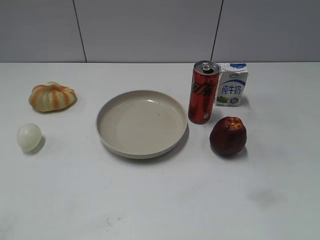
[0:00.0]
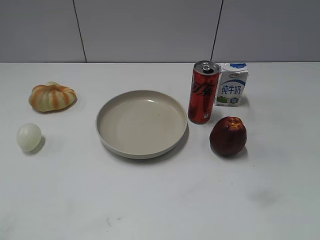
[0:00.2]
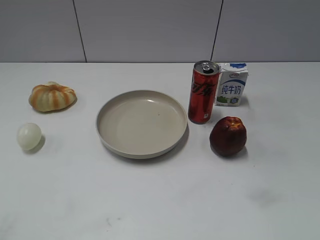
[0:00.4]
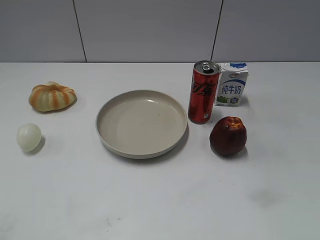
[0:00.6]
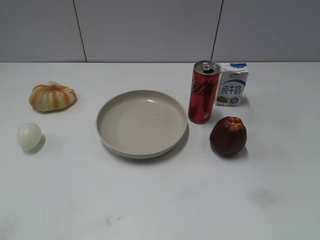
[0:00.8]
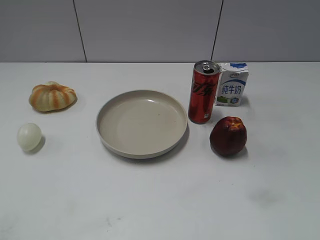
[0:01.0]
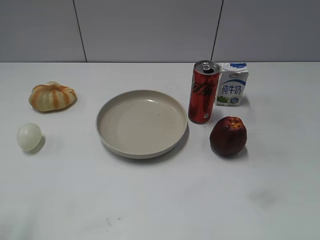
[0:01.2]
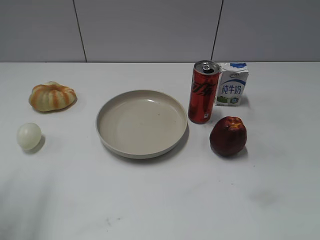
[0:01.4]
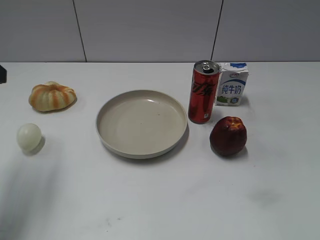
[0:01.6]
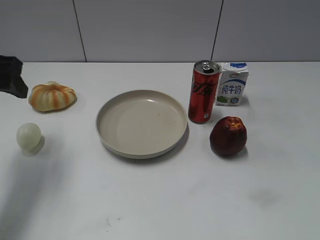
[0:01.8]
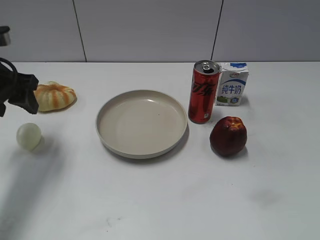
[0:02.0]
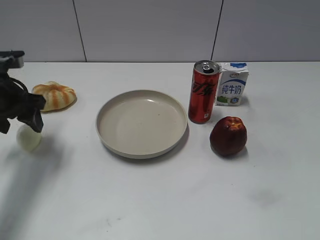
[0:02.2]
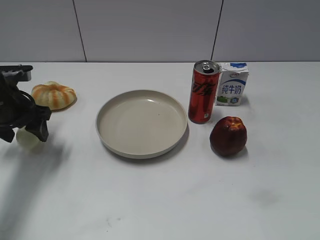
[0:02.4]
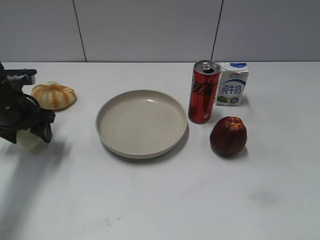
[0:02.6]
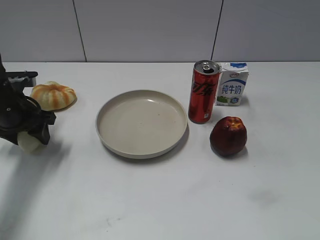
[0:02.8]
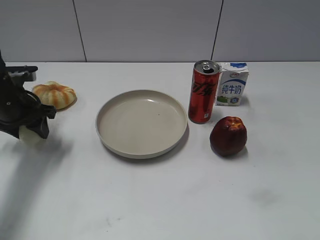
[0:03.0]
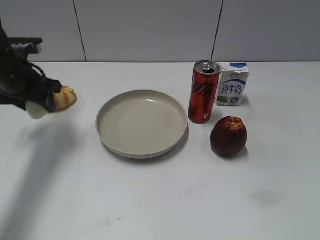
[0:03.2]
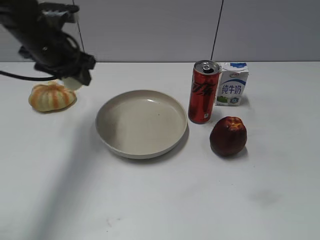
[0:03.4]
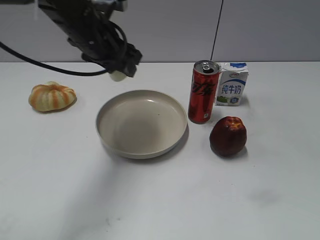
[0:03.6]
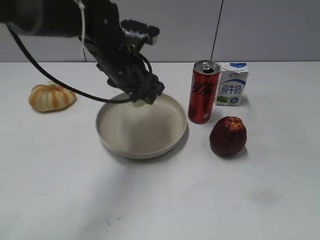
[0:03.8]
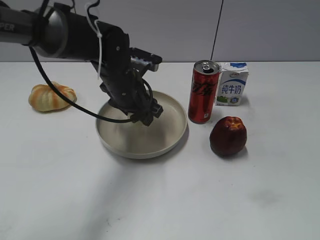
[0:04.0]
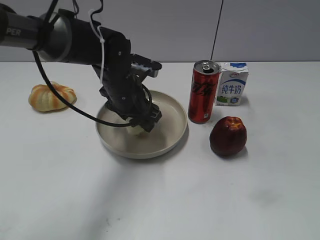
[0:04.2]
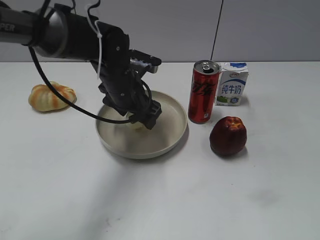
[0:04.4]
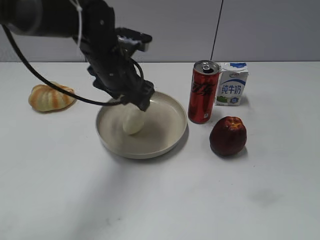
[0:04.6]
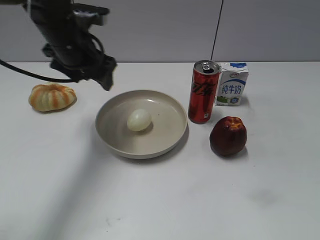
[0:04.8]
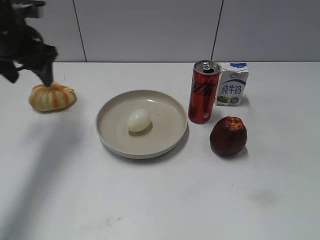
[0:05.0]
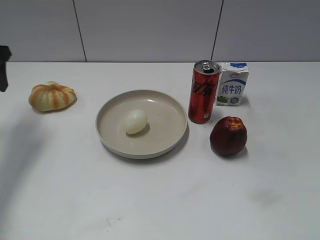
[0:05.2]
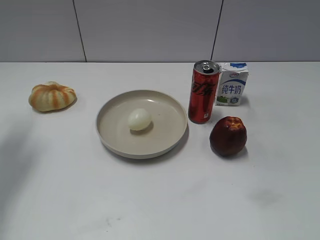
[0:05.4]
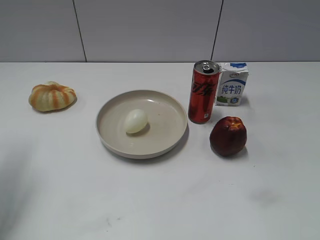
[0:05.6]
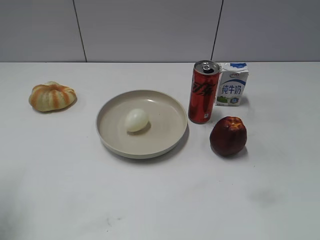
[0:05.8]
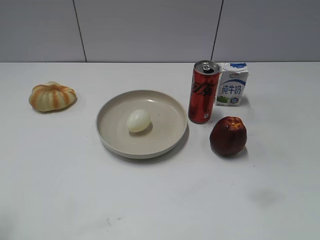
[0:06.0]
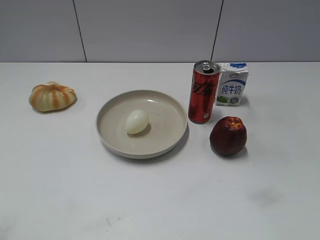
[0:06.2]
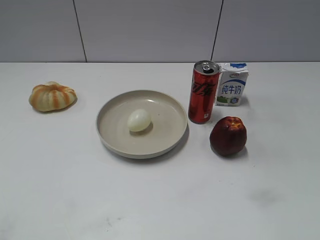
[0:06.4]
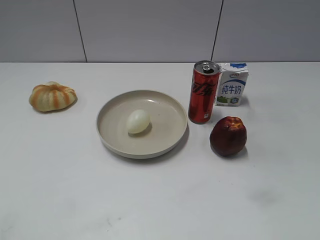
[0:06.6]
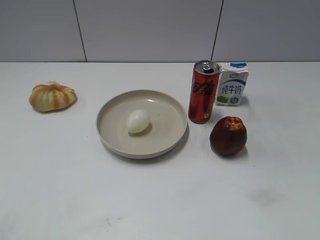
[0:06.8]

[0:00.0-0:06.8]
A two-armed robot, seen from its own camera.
Step, 0:00.8 to 0:02.8: Grasp the egg with left gripper.
Step, 0:03.0 to 0:04.6: Place the egg on the plate with left gripper.
0:01.4 to 0:02.8: The left gripper goes approximately 25 cm downward and forward.
0:02.8 to 0:04.0: The left gripper heads to the right, covering approximately 20 cm.
0:04.0 to 0:05.4: The left gripper goes roughly 30 cm to the left and upward, and opens up.
0:05.4 to 0:06.8: The left gripper shifts approximately 35 cm backward.

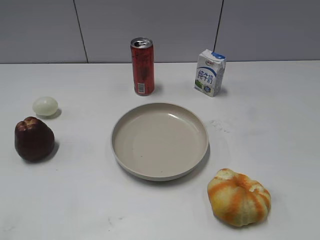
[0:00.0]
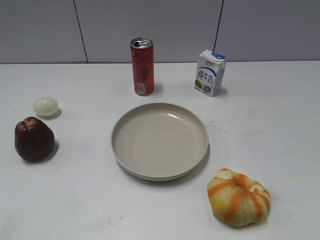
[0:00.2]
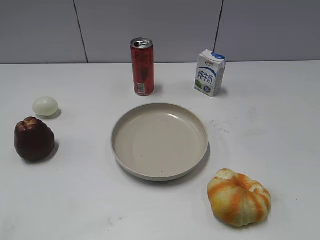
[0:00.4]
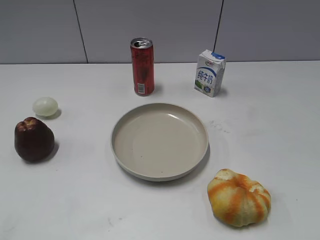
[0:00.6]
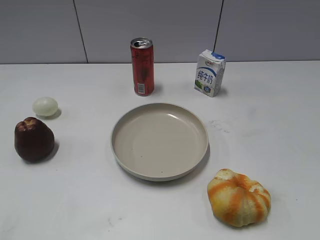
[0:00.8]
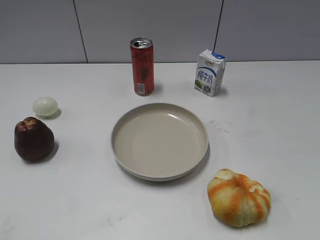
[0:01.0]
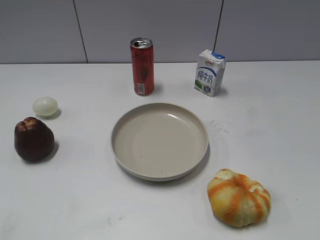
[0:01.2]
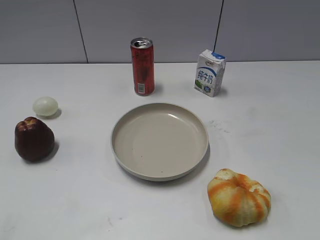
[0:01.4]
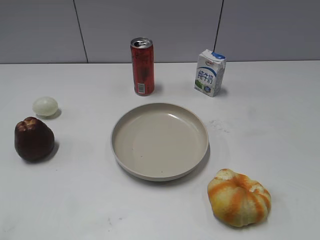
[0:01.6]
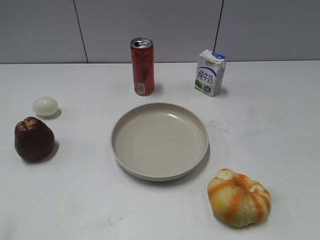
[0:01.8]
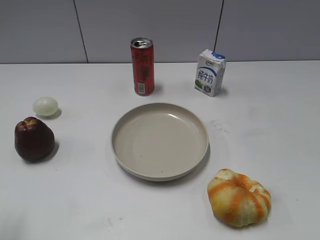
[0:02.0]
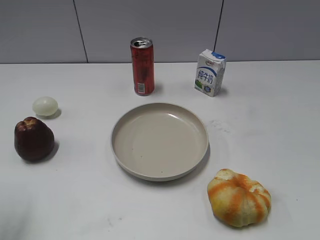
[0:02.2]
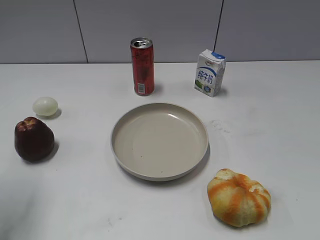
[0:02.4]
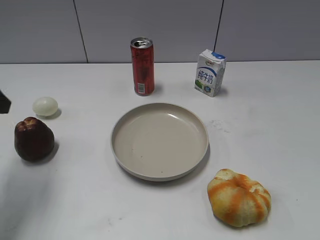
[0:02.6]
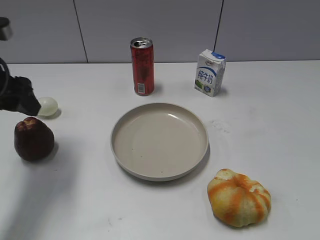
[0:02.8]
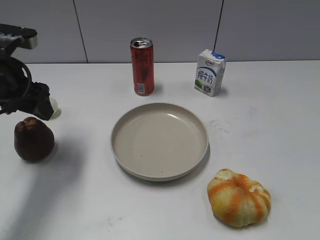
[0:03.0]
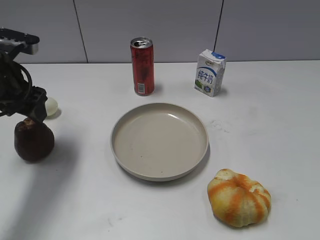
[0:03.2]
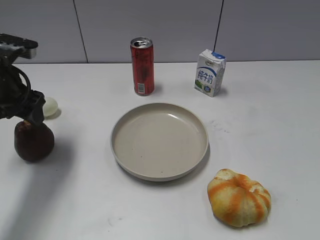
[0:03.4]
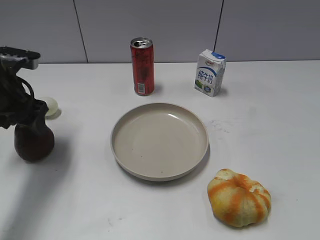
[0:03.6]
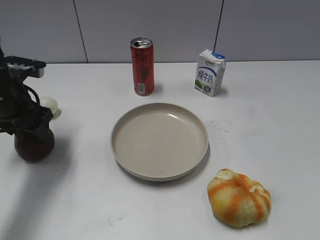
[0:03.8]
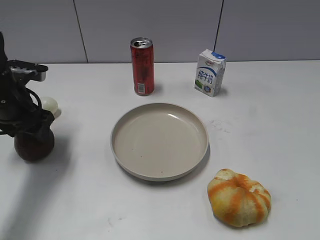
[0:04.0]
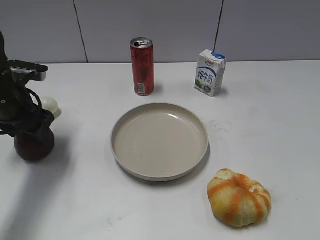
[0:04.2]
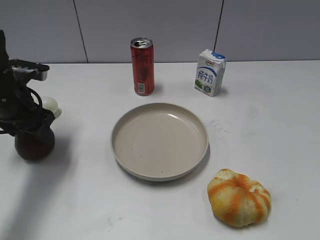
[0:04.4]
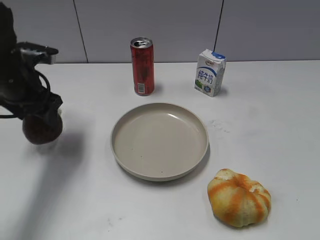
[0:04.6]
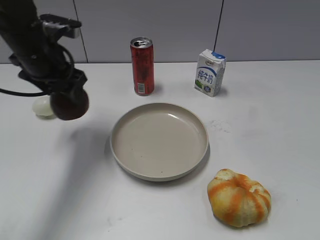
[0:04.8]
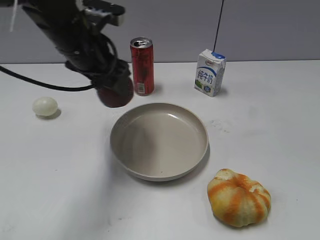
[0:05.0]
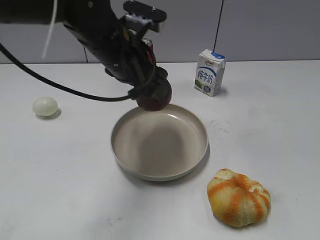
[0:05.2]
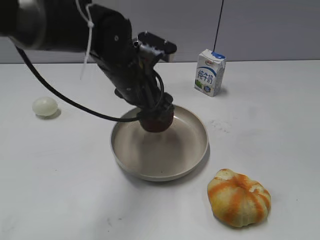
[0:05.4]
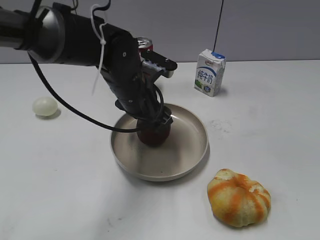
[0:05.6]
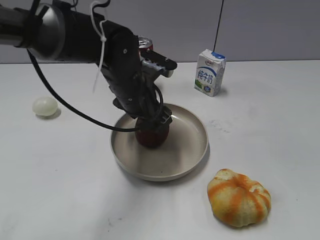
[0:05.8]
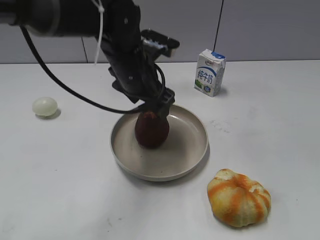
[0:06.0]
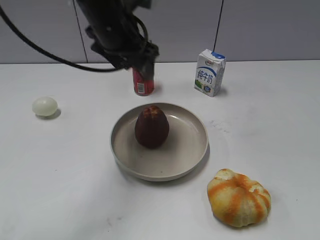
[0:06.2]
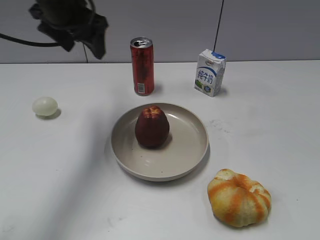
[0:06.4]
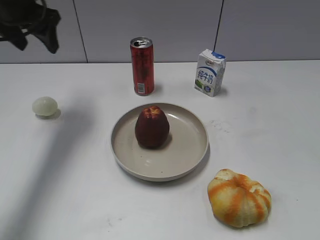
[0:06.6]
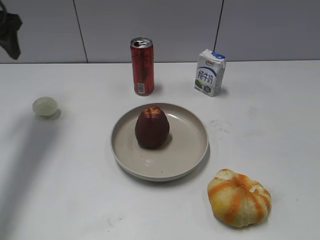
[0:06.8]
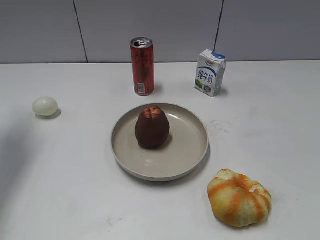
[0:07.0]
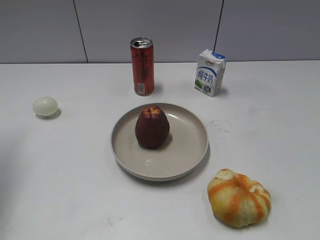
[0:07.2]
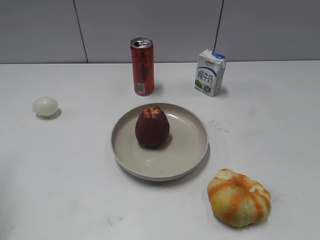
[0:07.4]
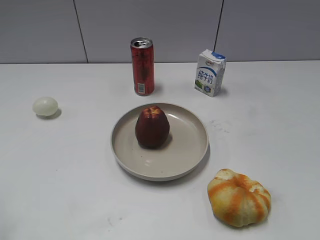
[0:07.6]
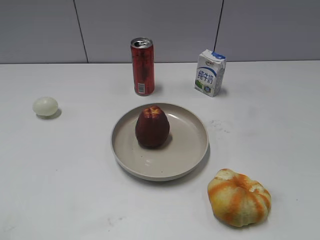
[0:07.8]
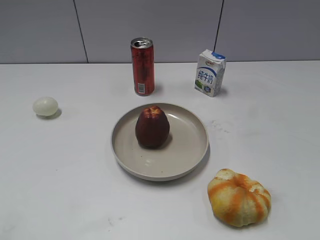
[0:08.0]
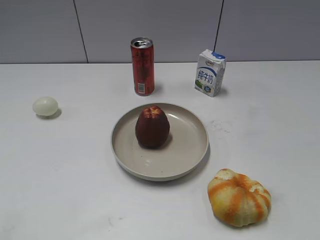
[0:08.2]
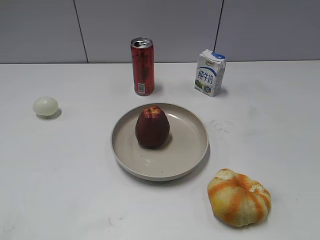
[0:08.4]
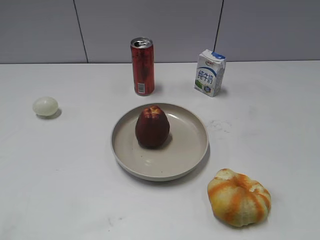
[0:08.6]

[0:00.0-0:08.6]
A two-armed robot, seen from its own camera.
Step, 0:02.6 to 0:04.4: Grasp the apple with left gripper.
Step, 0:04.6 to 0:06.0: Place the apple on the plate with left gripper.
0:01.4 to 0:02.8: The left gripper travels forward by about 30 cm, and opens its fingers.
0:02.8 to 0:04.4: The left gripper moves downward and forward, approximately 10 cm.
0:04.4 to 0:05.8: The left gripper shifts about 20 cm to the right, and opens up.
0:05.8 to 0:07.2: The left gripper heads to the left and upward, covering approximately 35 cm, and closes.
0:07.2 to 0:08.6: The left gripper travels backward by roughly 25 cm.

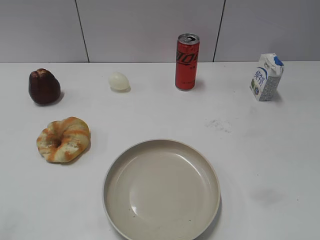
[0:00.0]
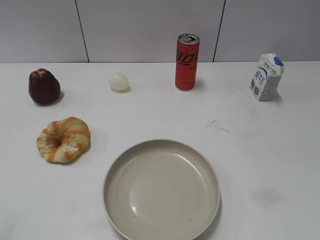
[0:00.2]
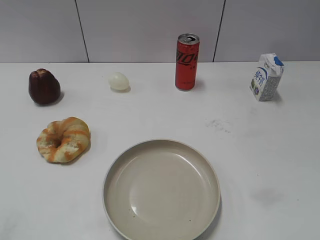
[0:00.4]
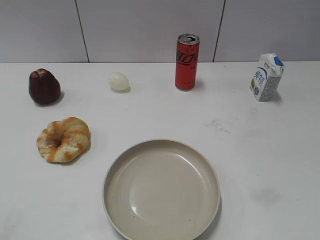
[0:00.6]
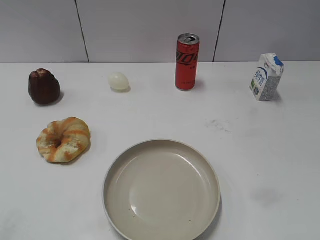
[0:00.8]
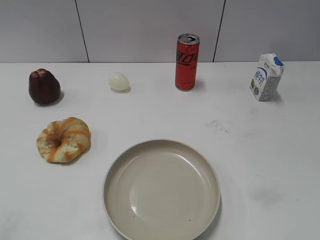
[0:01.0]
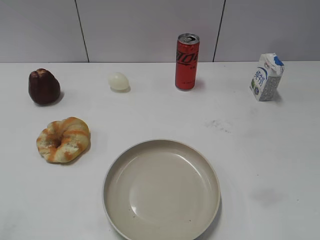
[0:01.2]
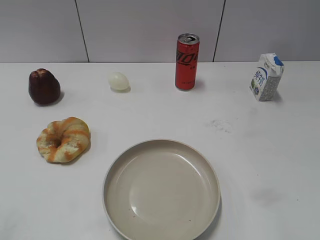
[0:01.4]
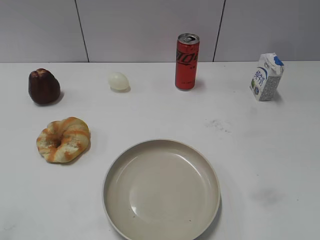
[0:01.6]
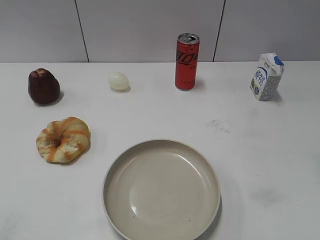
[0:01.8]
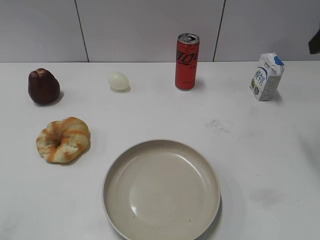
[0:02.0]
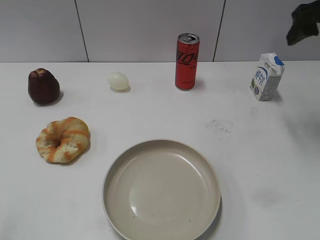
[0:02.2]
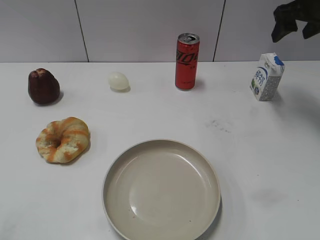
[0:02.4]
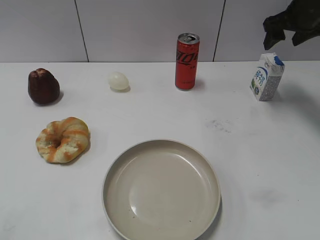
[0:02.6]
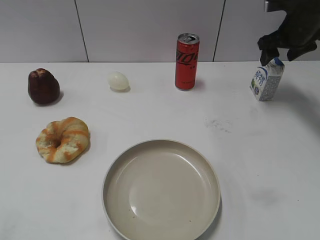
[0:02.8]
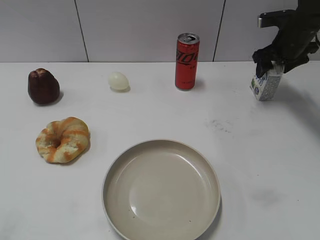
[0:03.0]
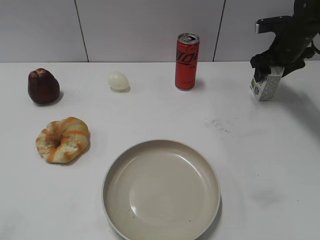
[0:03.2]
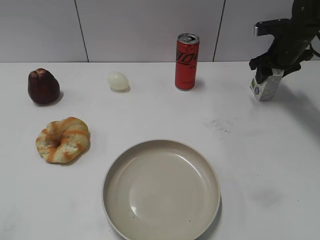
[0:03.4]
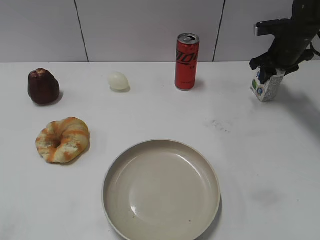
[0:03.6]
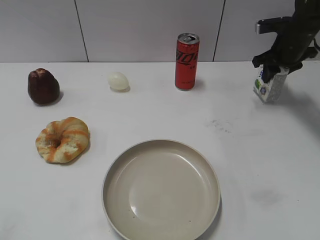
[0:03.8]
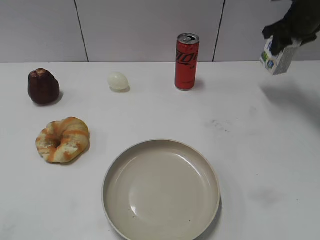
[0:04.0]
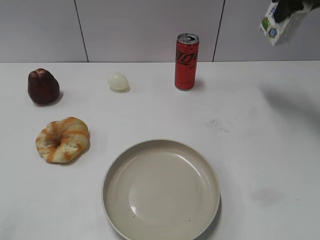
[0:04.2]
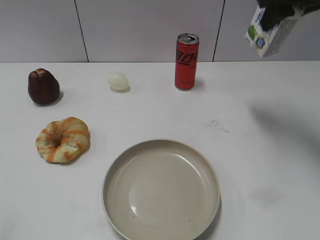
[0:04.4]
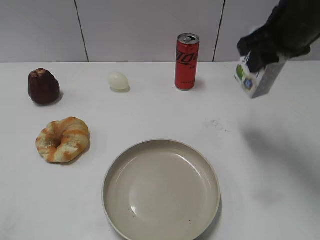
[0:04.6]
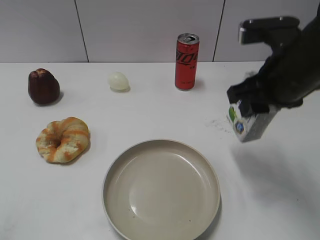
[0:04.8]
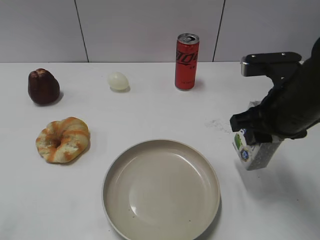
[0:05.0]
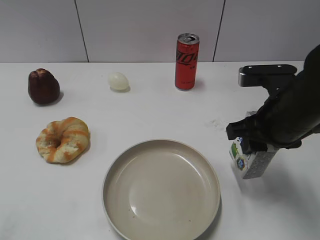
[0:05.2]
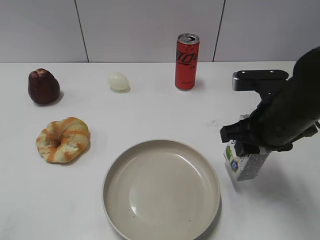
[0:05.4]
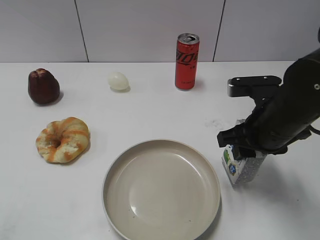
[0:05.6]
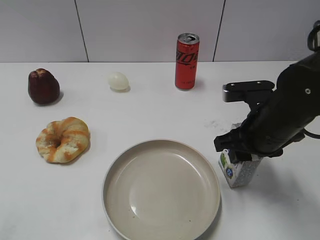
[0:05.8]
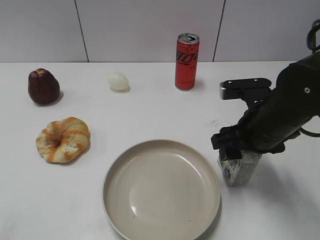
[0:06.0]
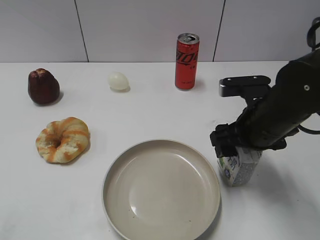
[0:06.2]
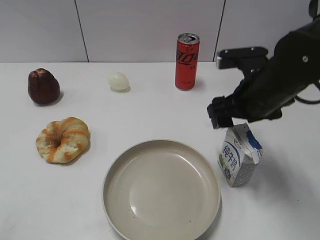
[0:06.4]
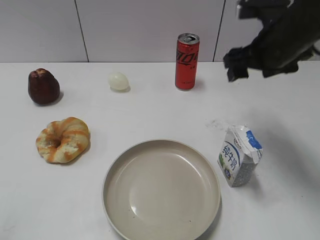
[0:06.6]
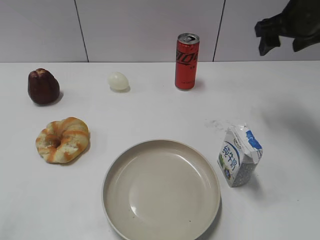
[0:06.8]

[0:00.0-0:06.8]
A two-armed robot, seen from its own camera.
Step, 0:01.0 to 0:03.6: Grasp the milk with right gripper.
Step, 0:03.8 to 0:06.4: Place the milk on the table with right gripper.
0:01.4 to 0:02.8: The right gripper goes some 40 cm forward.
0:02.8 to 0:04.0: The right gripper closes up.
0:04.0 to 0:05.4: The right gripper shifts about 25 cm backward and to the left.
0:05.4 to 0:06.8: The right gripper moves forward, upward and to the right, approximately 20 cm, and opens up.
